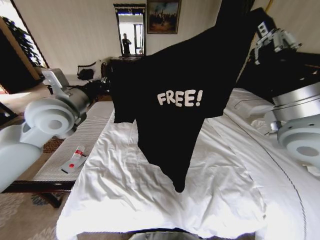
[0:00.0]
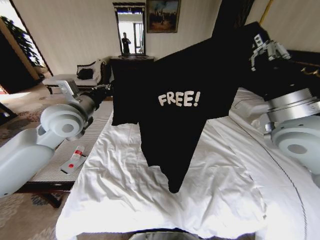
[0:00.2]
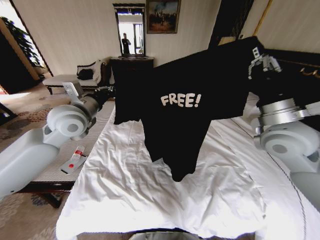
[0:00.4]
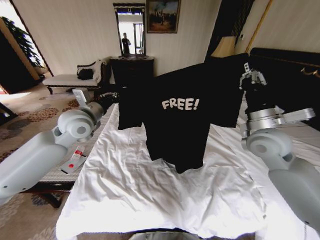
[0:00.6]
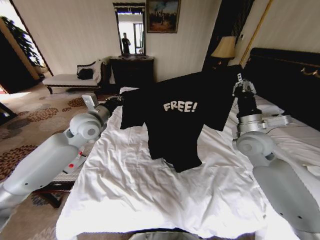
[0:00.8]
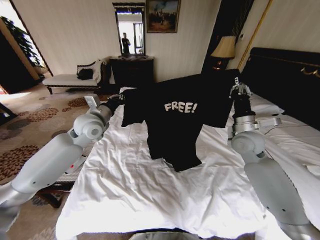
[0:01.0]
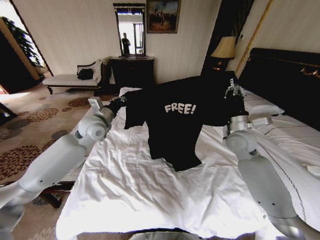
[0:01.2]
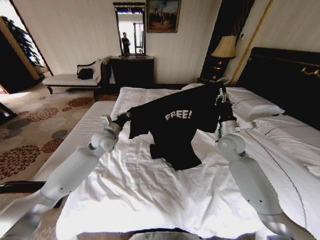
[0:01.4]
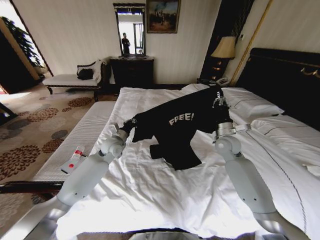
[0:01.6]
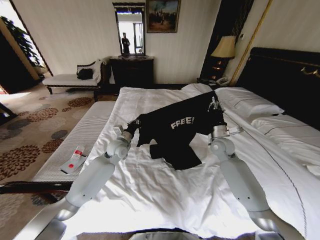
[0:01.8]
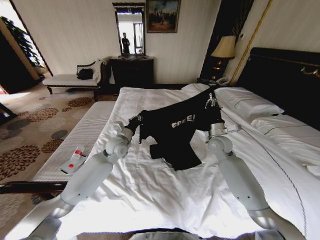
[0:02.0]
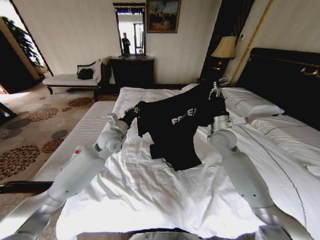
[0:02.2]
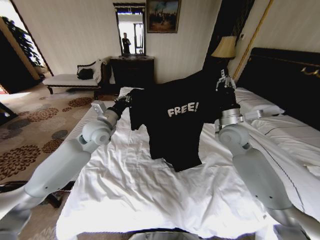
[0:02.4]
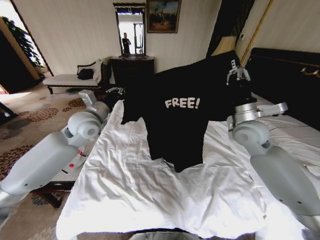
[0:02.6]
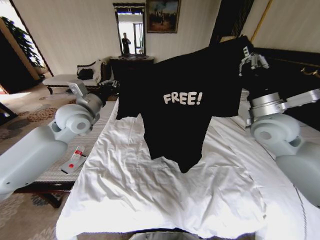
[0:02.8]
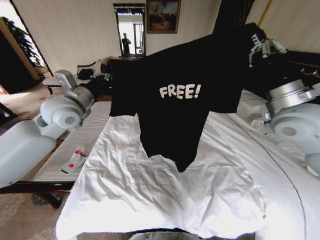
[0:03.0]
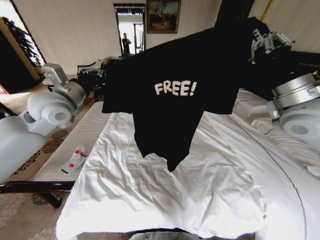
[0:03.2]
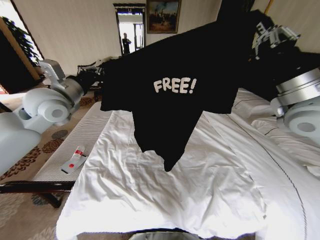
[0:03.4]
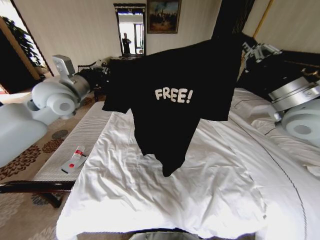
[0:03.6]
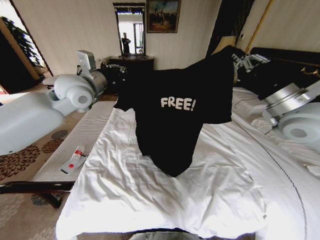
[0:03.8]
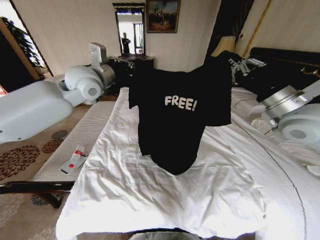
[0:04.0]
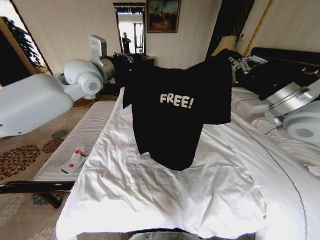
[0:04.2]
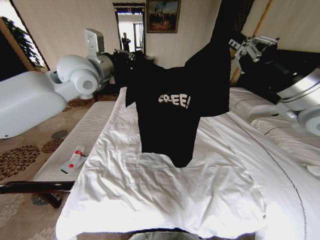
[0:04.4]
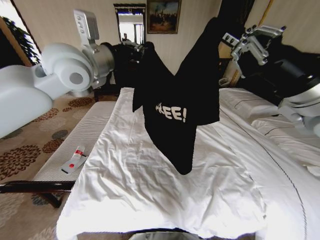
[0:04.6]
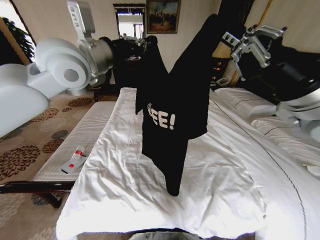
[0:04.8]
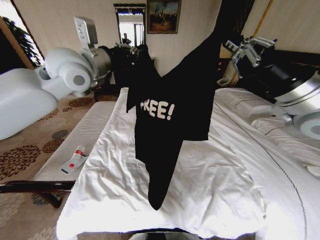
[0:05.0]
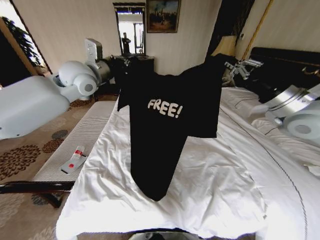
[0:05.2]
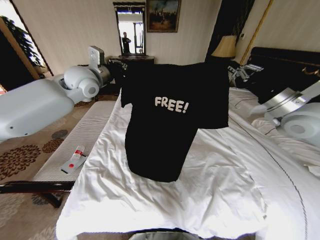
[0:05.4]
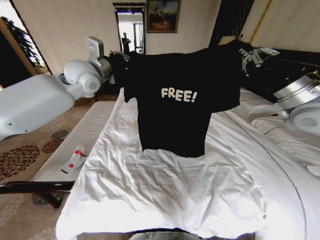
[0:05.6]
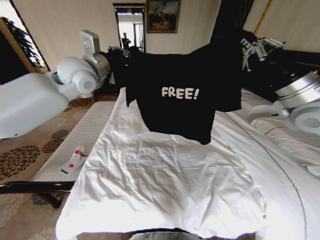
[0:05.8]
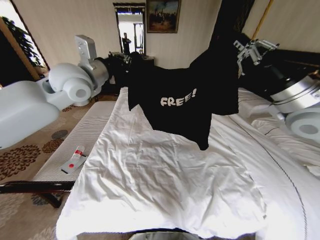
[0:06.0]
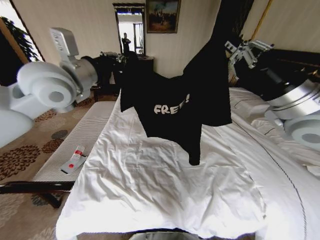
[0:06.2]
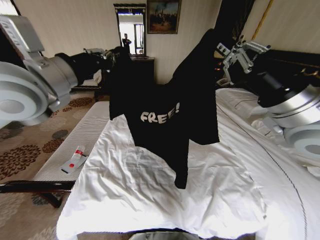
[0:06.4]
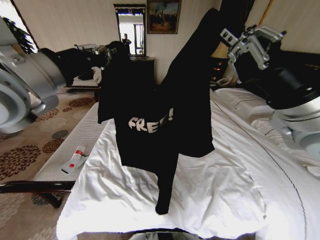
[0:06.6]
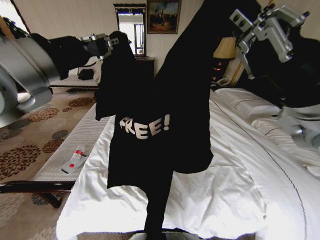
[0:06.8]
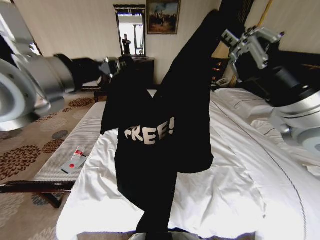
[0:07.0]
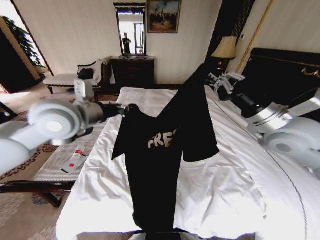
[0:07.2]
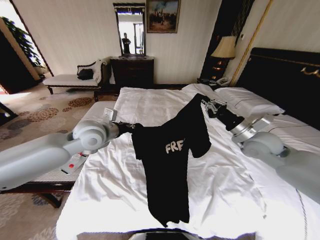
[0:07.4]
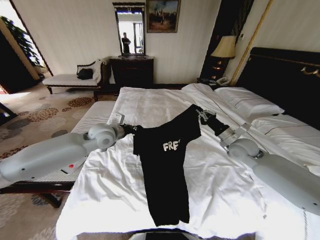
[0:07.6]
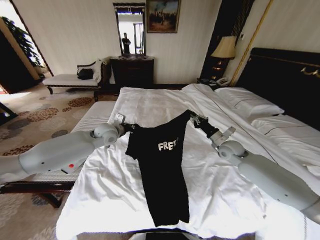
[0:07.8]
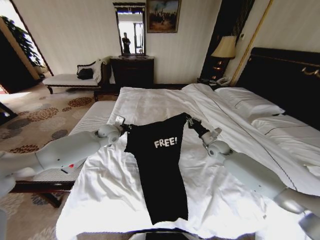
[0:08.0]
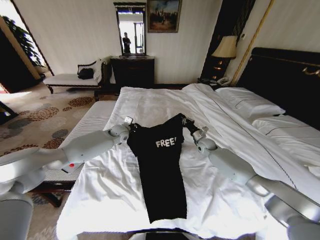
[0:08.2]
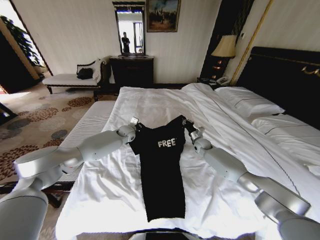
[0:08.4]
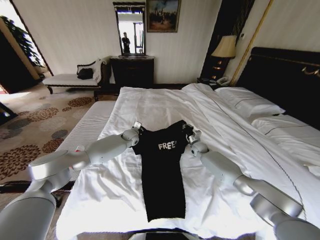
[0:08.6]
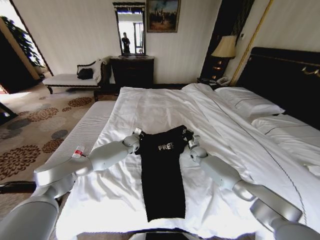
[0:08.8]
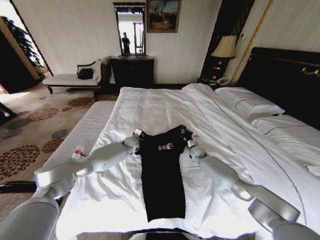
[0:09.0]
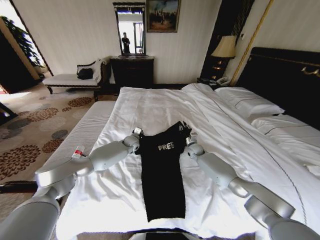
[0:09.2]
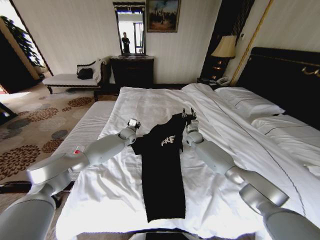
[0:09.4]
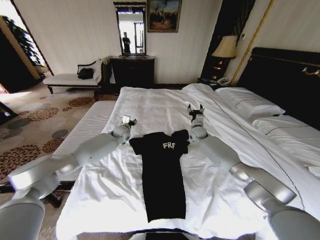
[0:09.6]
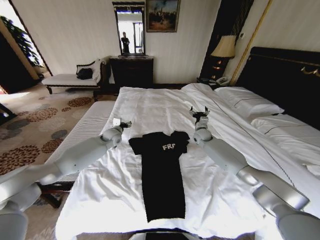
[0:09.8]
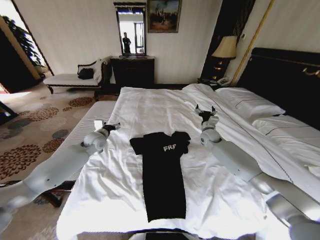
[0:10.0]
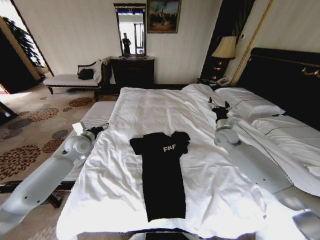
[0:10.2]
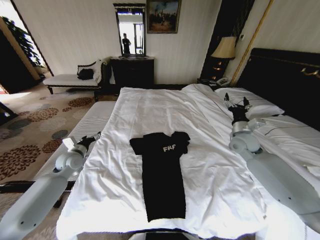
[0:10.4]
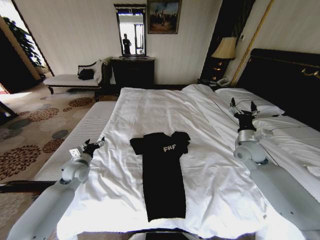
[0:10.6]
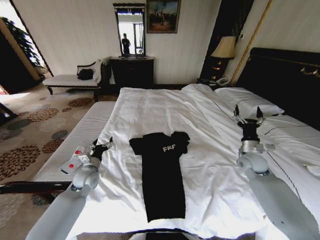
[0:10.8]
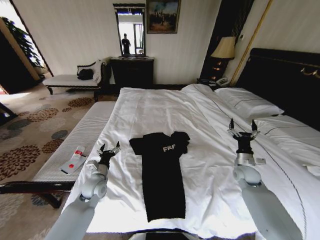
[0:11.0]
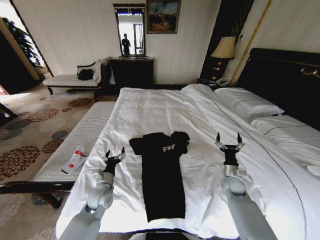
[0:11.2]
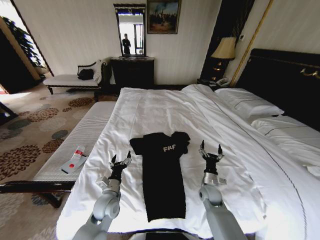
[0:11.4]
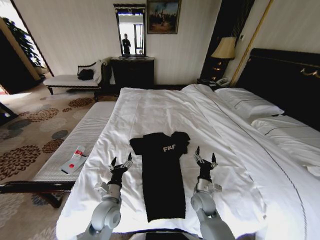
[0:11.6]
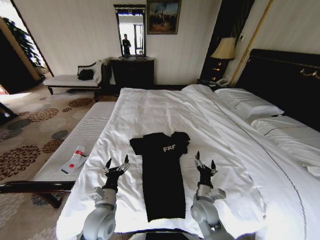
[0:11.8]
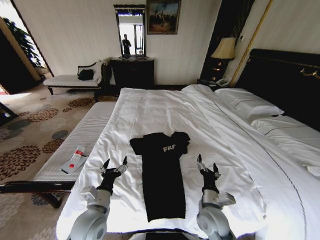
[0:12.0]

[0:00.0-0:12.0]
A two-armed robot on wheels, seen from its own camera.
Task of the whole recording: Fold the clothes on the bed.
0.0 to 1.6 s: The left gripper moves downward, some 25 cm, while the right gripper goes roughly 30 cm downward and forward.
1.6 to 3.0 s: The right gripper is displaced upward and backward by approximately 25 cm. The left gripper moves upward, some 20 cm.
3.0 to 4.4 s: The left gripper moves upward and to the right, roughly 10 cm; the right gripper goes roughly 5 cm upward.
4.4 to 6.0 s: The left gripper swings forward and backward, some 10 cm each way, with 2 reversals.
6.0 to 7.6 s: The two grippers go some 20 cm downward.
7.6 to 9.0 s: The right gripper heads downward, forward and to the left, covering some 25 cm. Meanwhile the left gripper heads downward and forward, covering roughly 25 cm.
9.0 to 10.4 s: The right gripper travels upward, to the right and backward by some 25 cm, and opens; the left gripper goes roughly 30 cm to the left and backward, and opens up.
10.4 to 12.0 s: The left gripper is displaced backward and to the right by approximately 25 cm; the right gripper shifts some 35 cm backward, to the left and downward.

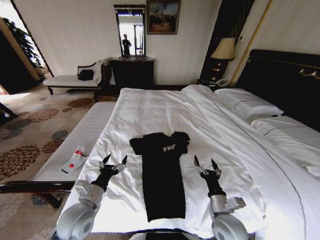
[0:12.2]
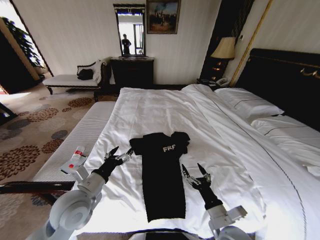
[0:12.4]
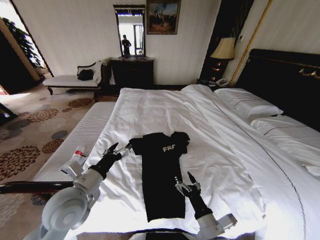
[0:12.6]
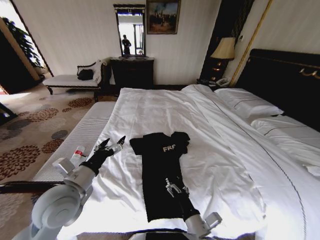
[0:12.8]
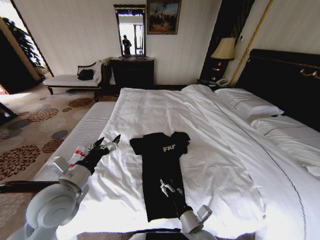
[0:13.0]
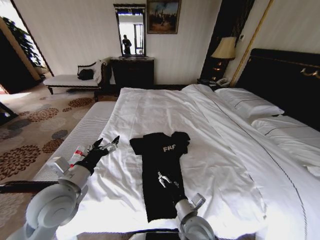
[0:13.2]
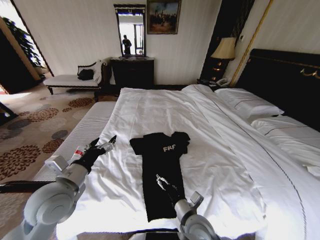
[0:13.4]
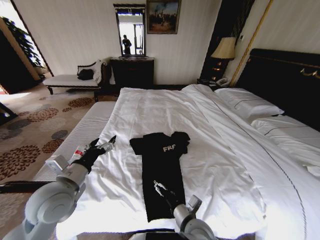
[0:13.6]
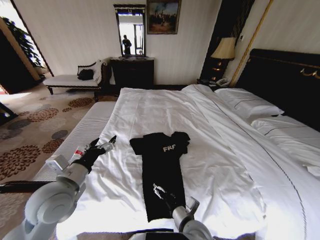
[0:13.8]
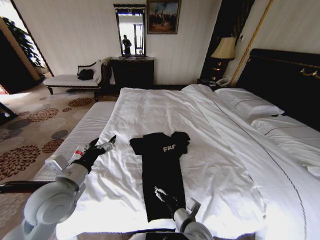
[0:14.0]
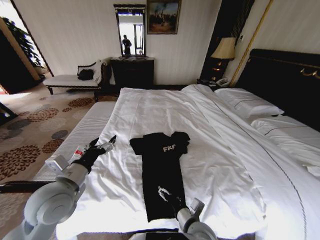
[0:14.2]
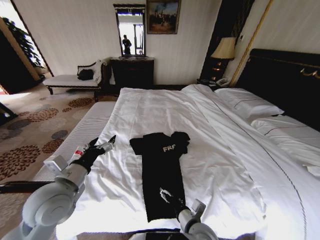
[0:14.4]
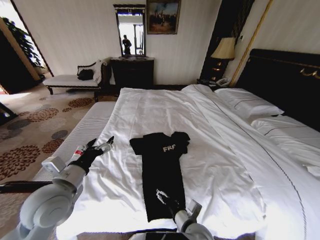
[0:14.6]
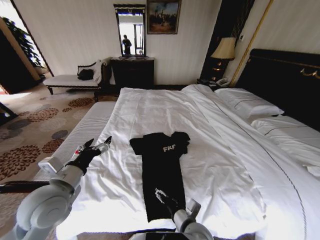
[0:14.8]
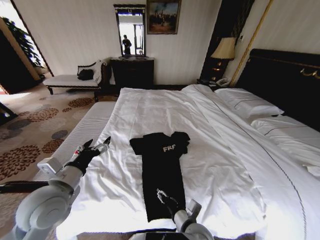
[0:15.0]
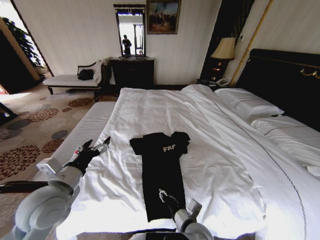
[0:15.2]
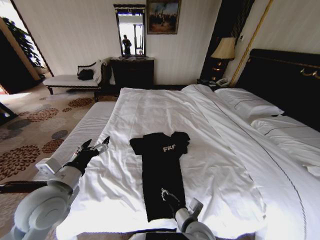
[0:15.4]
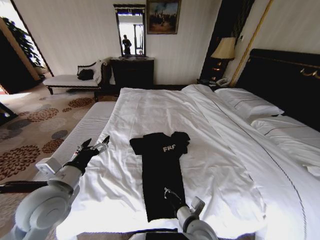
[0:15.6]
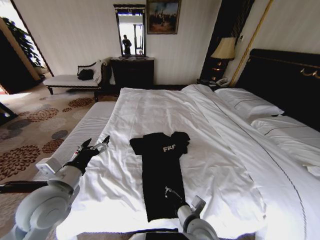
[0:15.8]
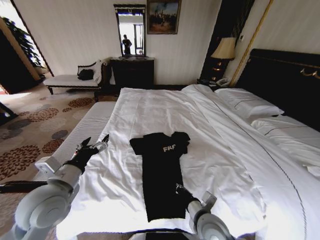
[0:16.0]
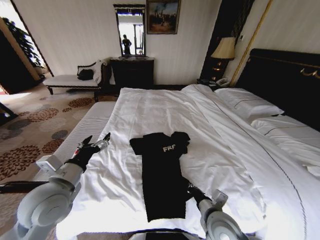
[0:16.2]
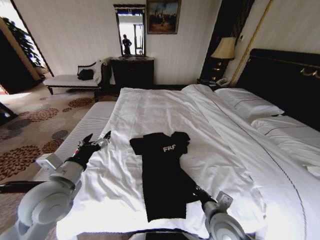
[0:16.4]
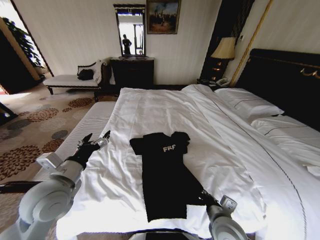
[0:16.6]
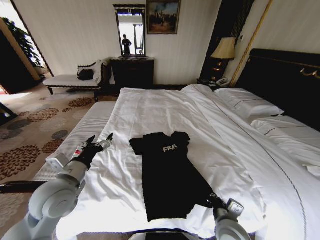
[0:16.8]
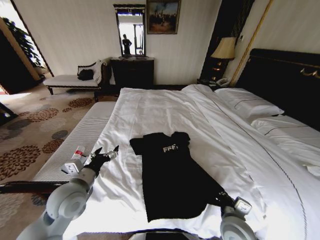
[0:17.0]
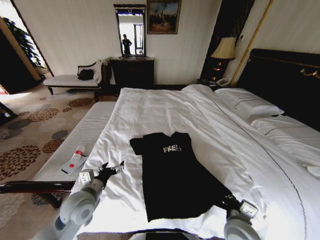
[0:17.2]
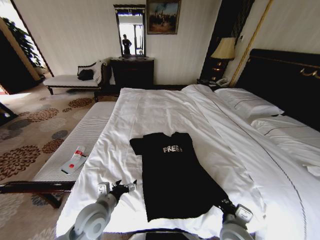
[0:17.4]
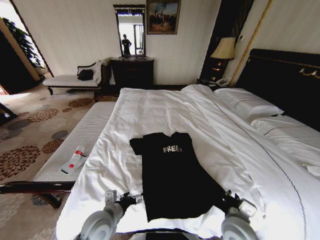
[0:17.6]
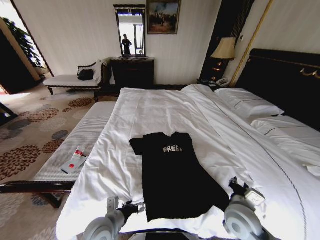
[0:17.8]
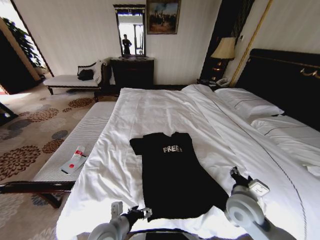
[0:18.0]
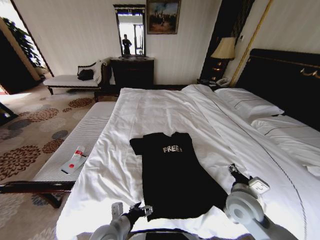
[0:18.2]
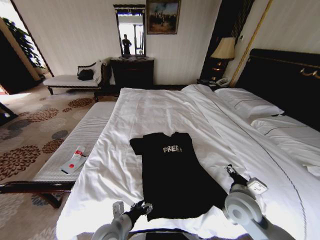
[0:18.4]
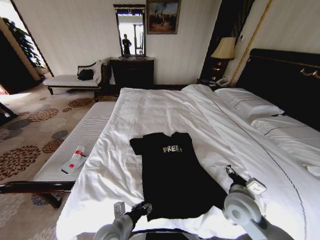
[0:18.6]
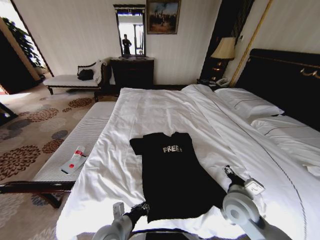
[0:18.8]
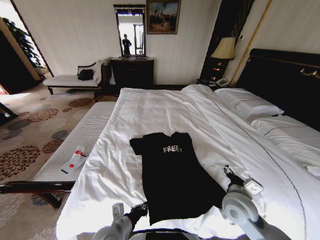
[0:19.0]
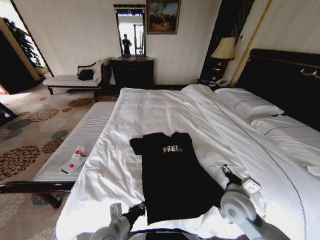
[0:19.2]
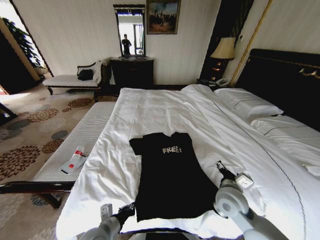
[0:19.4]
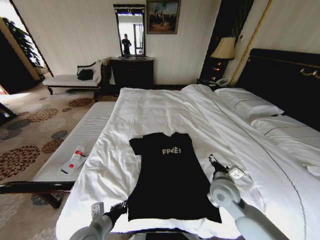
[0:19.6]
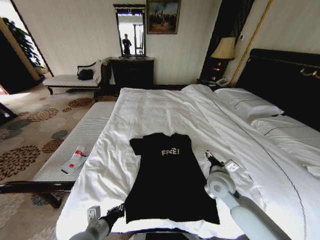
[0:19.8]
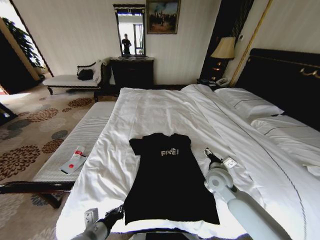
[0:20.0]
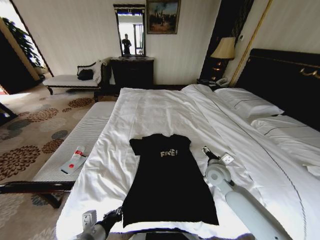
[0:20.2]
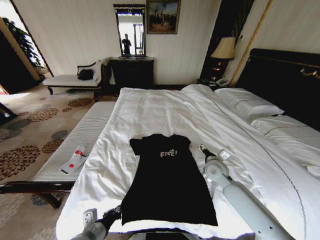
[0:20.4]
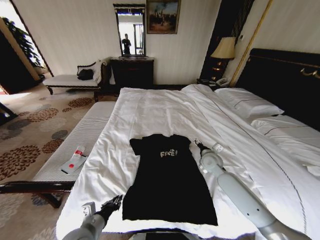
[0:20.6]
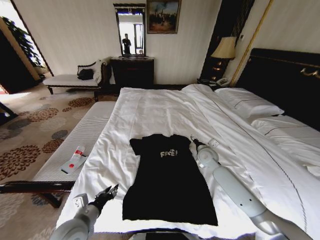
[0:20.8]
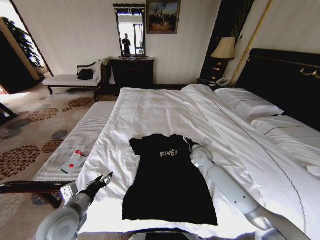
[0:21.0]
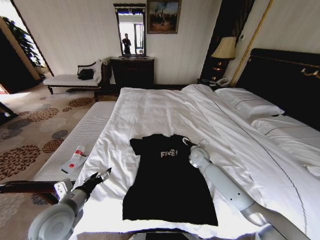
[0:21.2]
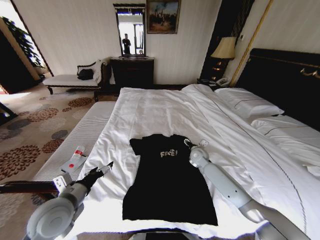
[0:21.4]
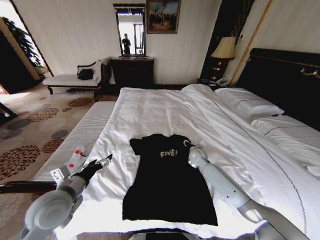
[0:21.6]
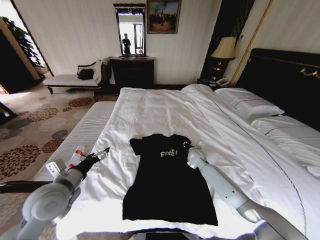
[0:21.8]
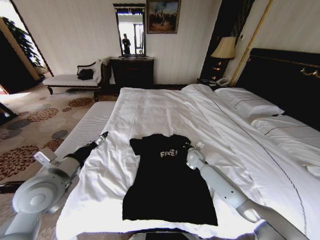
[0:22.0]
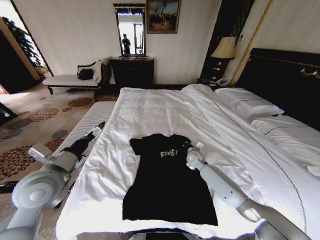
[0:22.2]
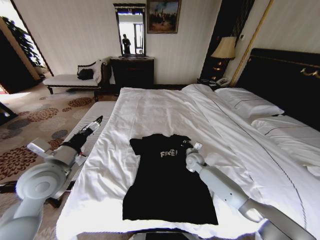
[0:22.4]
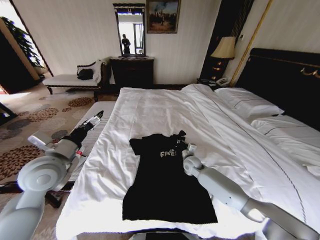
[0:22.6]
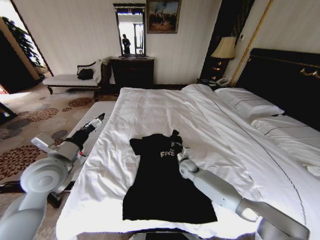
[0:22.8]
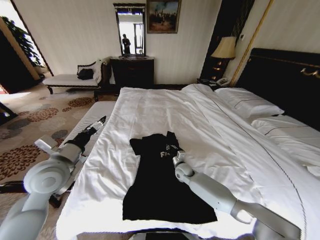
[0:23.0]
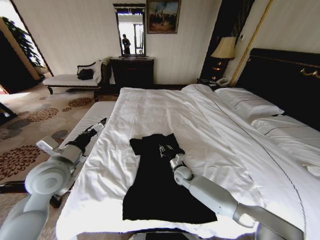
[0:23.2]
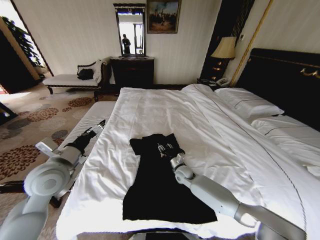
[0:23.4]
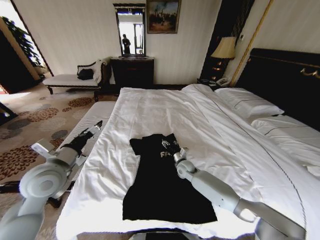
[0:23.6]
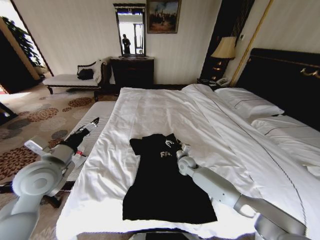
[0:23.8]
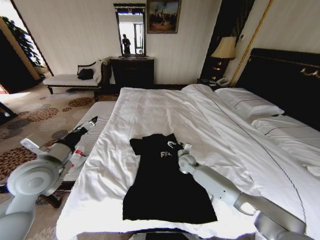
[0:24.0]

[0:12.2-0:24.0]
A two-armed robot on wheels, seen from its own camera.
Task of the whole recording: Fold the clothes on the bed.
12.2 to 13.6 s: The right gripper heads to the left, covering about 10 cm, while the left gripper is displaced upward by about 10 cm.
13.6 to 15.2 s: The right gripper closes its fingers.
15.2 to 16.6 s: The right gripper goes about 10 cm to the right, and closes up.
16.6 to 18.2 s: The left gripper goes approximately 20 cm downward and to the right; the right gripper goes about 10 cm forward and to the right, and opens its fingers.
18.2 to 19.6 s: The left gripper heads to the left, covering about 5 cm, and closes up. Meanwhile the right gripper heads forward, covering some 5 cm.
19.6 to 21.0 s: The left gripper heads upward and to the left, covering some 10 cm, and opens; the right gripper is displaced forward by roughly 20 cm.
21.0 to 22.6 s: The left gripper shifts approximately 15 cm upward and forward, and opens its fingers; the right gripper heads downward, covering about 10 cm, and closes up.
22.6 to 24.0 s: The right gripper opens up.
